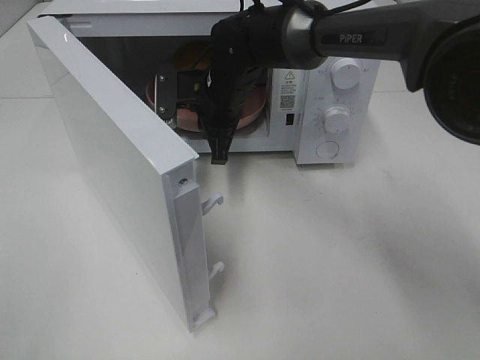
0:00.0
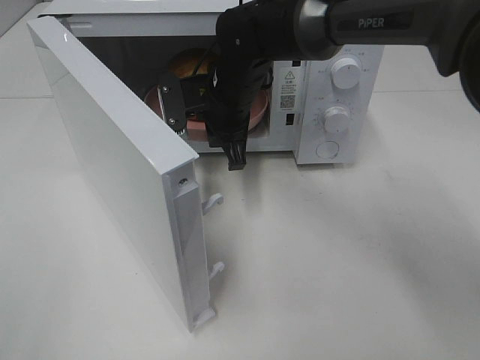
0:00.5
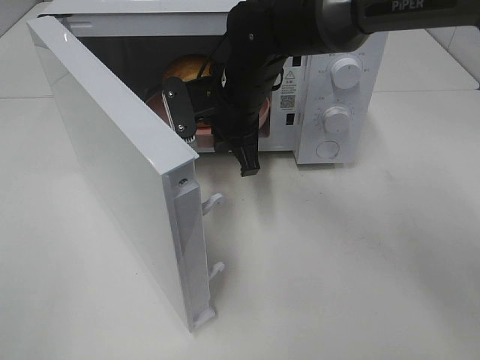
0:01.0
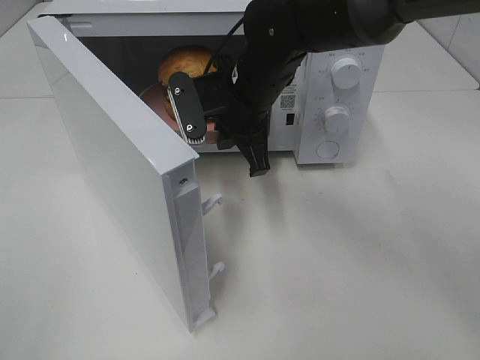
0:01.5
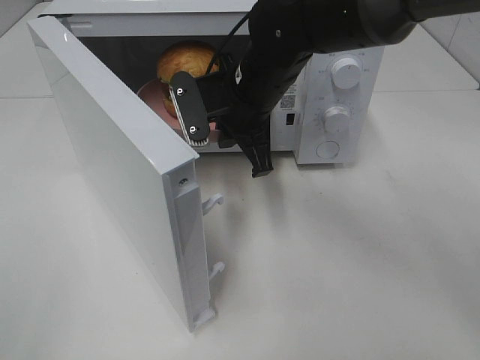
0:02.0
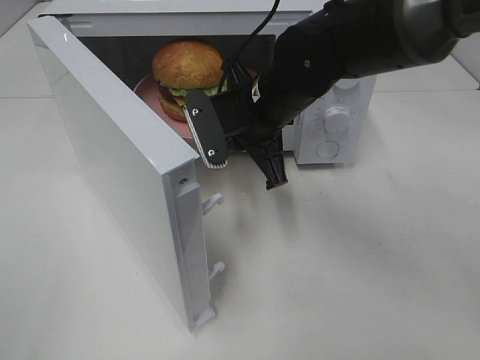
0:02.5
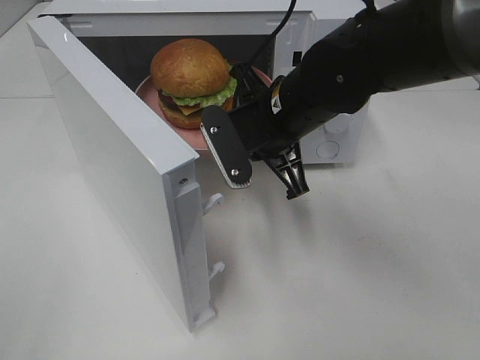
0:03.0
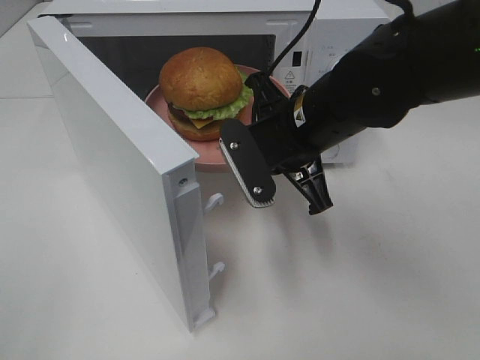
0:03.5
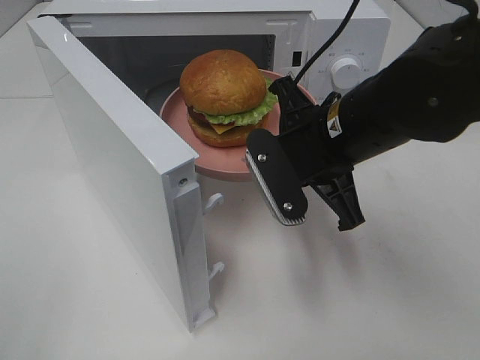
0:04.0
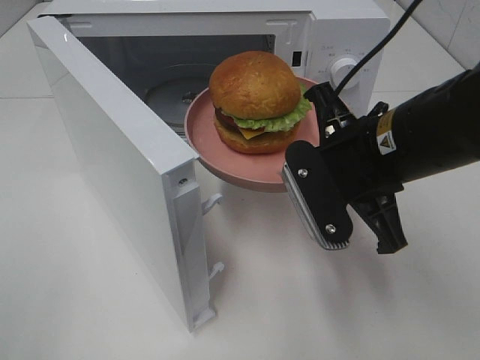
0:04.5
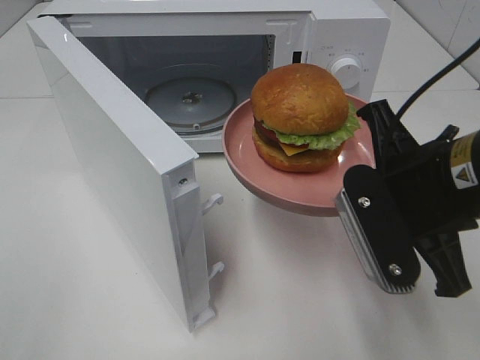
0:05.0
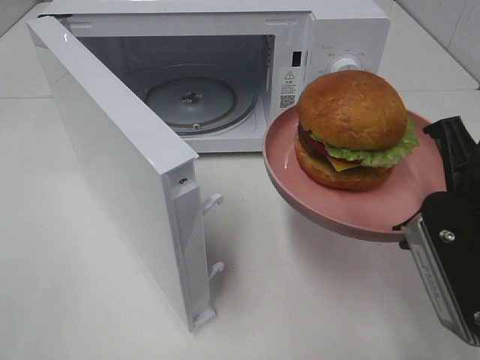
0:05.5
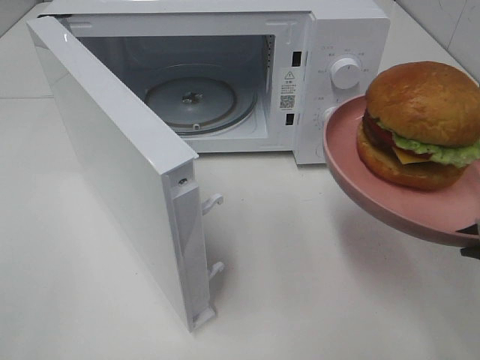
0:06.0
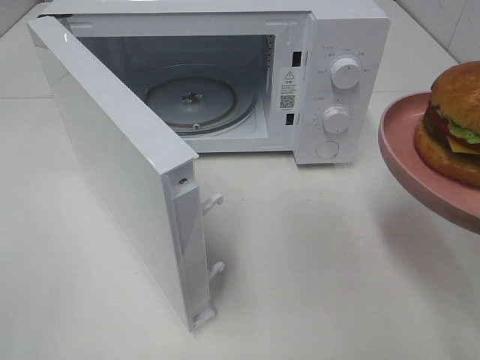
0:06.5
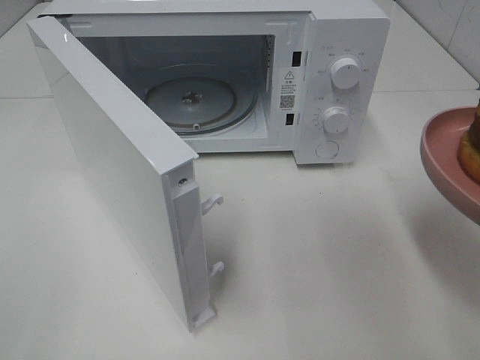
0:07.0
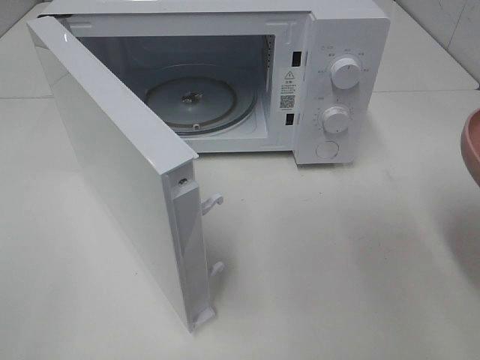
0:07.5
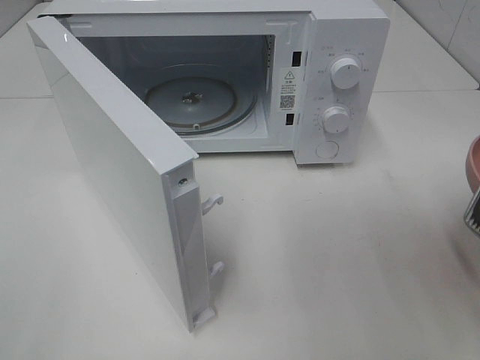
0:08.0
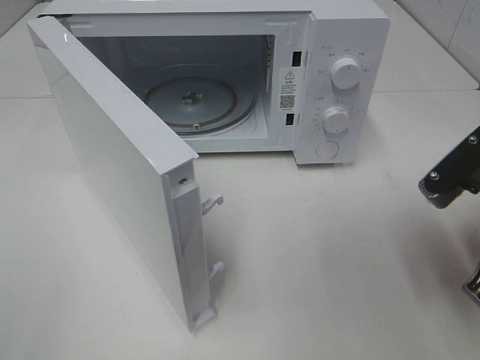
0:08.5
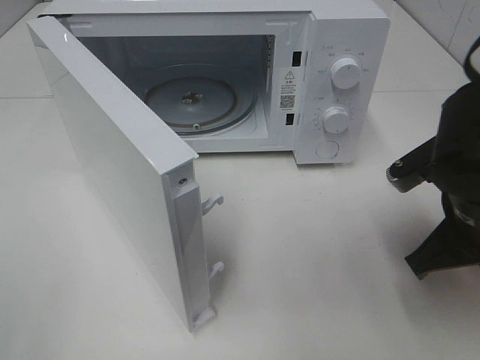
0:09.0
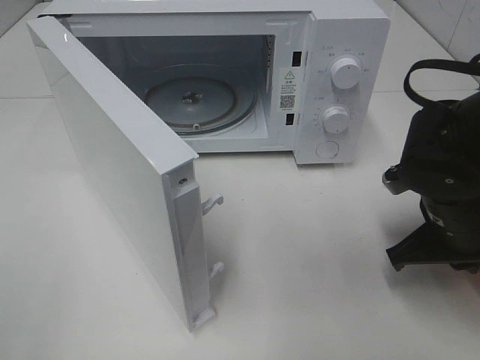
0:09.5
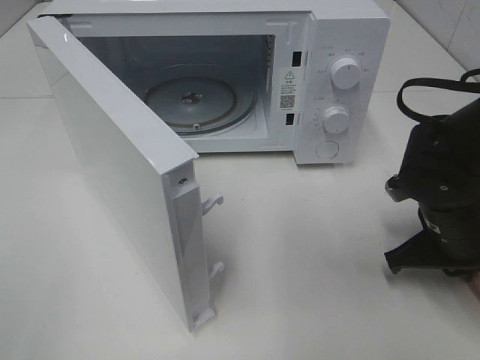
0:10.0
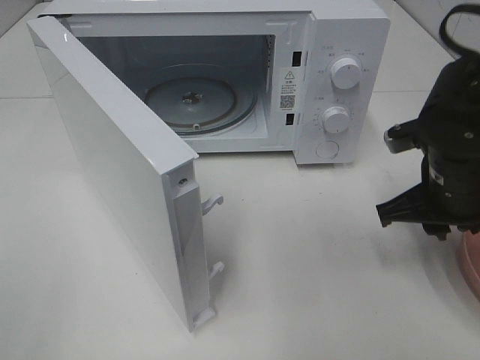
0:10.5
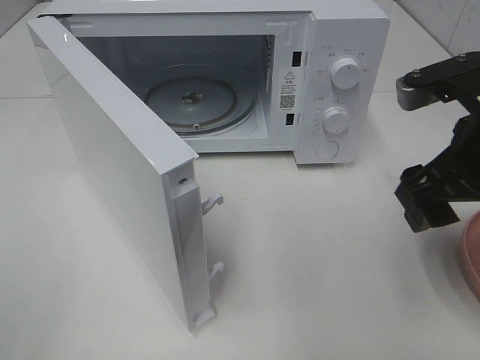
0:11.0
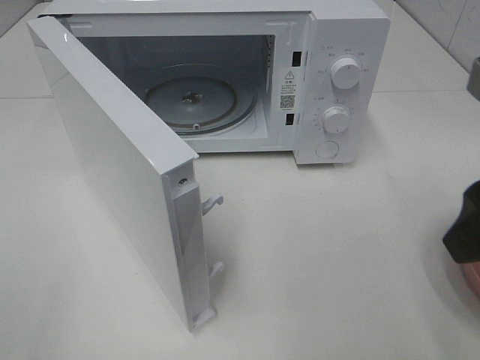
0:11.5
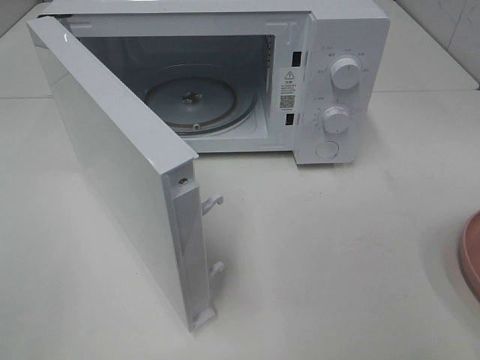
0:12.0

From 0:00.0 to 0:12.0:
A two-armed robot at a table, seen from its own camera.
Task of the whole recording: Heat the burger.
Step, from 0:00.0 to 0:10.0: Right hand: place the plate on the table.
From 0:00.0 to 0:02.0: The right gripper is displaced backward by some 5 cm.
From 0:02.0 to 0:04.0: The right gripper shifts approximately 10 cm backward and to the right.
From 0:04.0 to 0:06.0: The right gripper moves backward and to the right, roughly 20 cm.
From 0:08.0 to 0:10.0: The right gripper heads downward and forward, covering some 15 cm.
From 0:10.0 to 0:12.0: The right gripper shifts some 30 cm upward and backward, and opens.

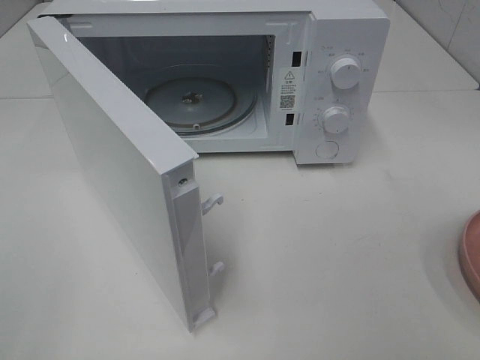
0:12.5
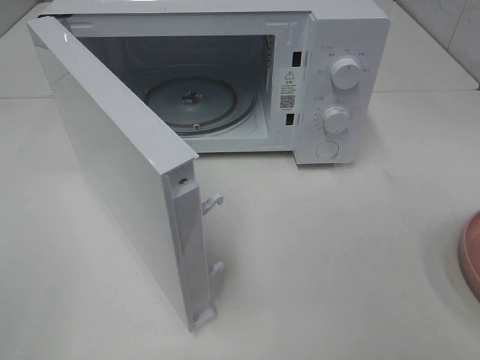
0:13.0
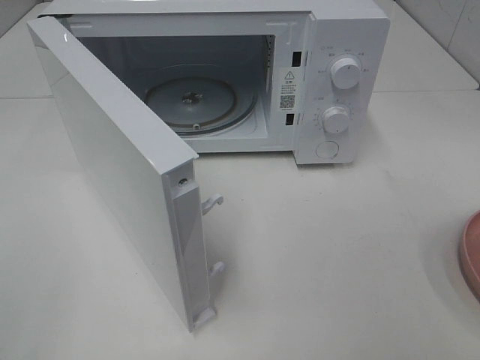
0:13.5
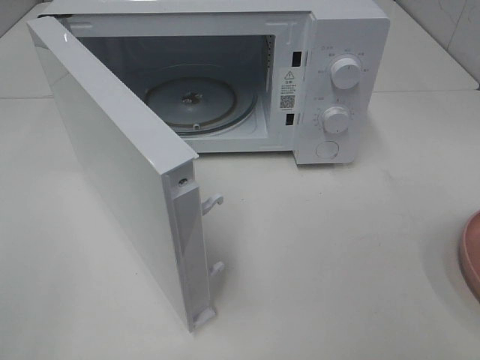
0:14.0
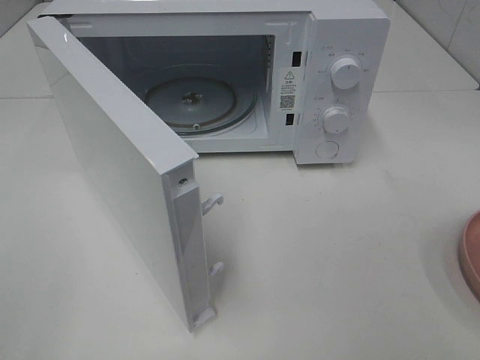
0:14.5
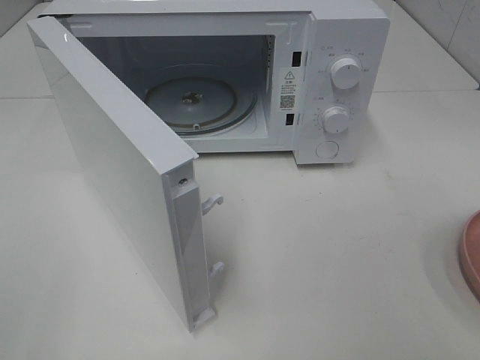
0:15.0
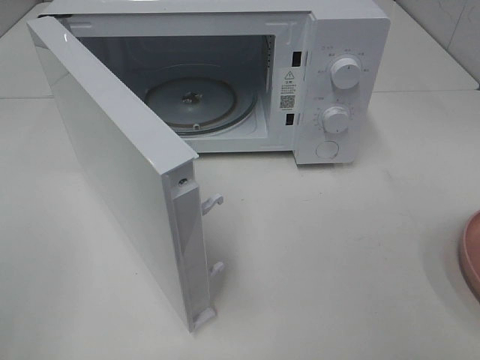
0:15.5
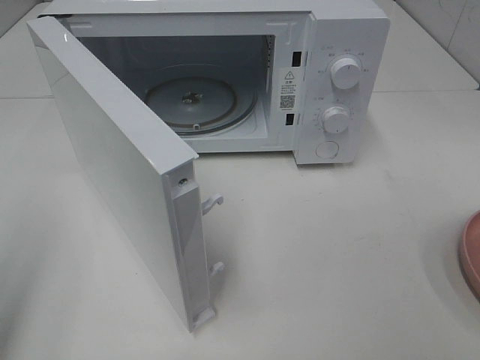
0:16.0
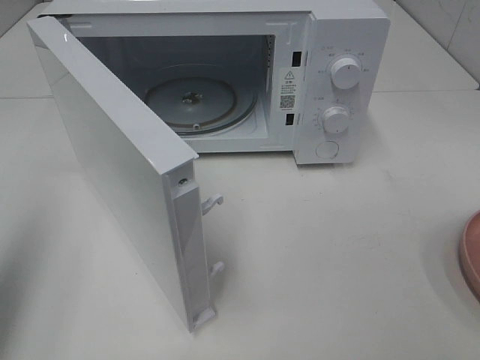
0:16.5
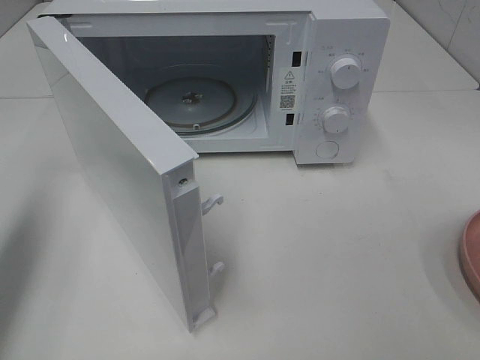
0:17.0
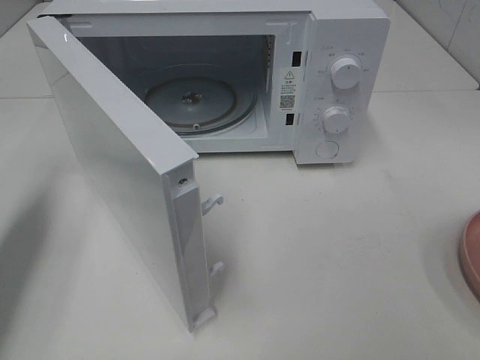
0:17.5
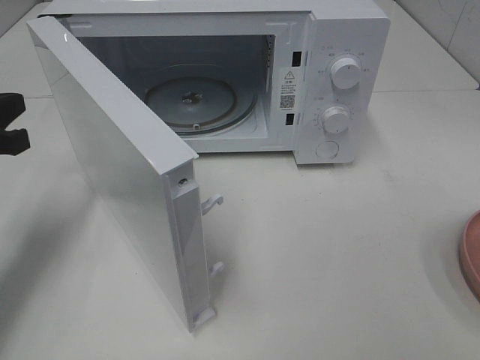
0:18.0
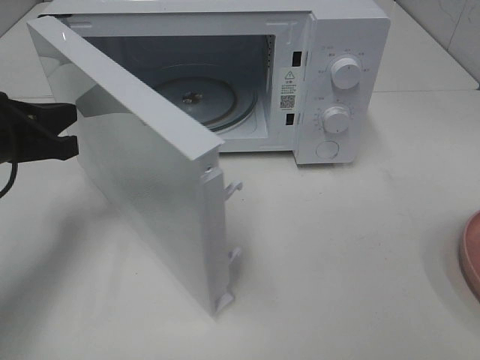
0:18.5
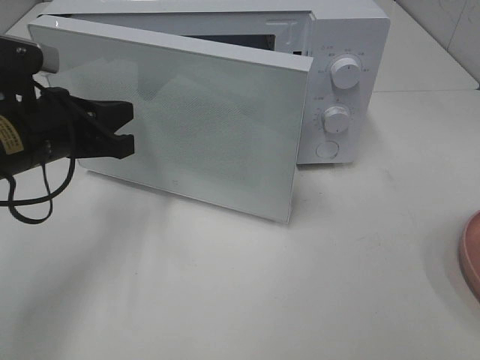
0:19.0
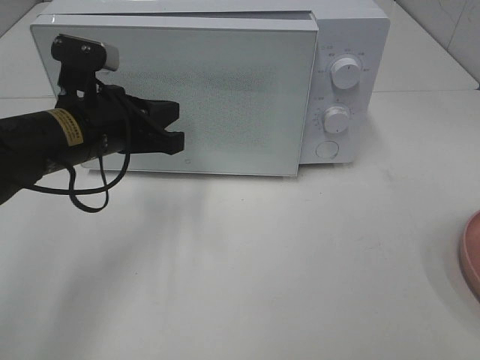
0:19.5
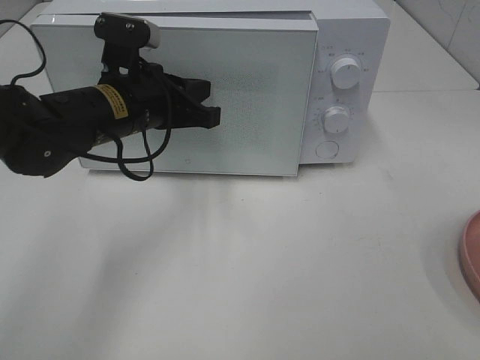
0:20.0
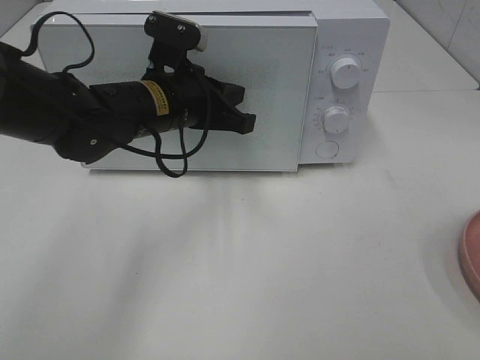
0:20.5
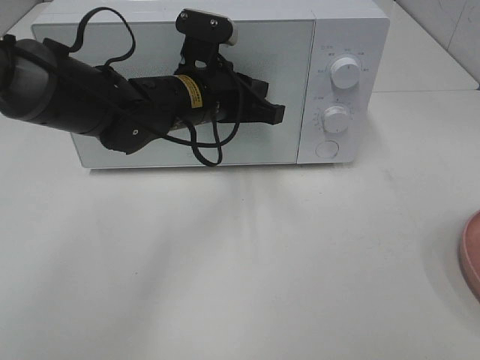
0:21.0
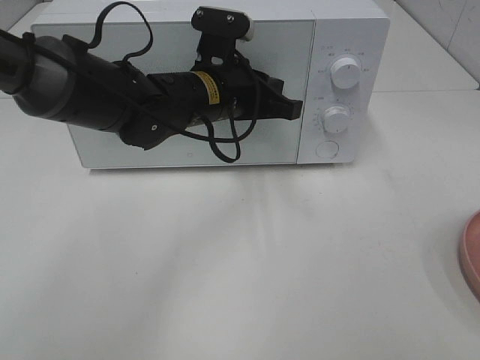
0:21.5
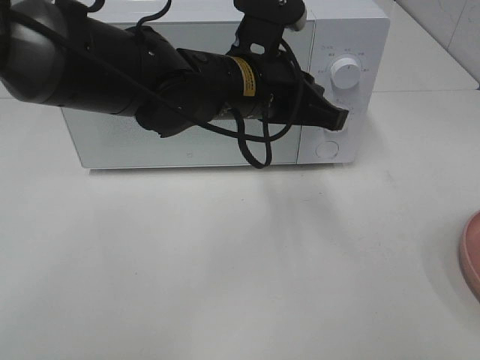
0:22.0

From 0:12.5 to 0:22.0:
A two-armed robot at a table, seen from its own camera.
Task of the whole recording: Heat the burger.
Step, from 0:12.5 to 0:21.5: Left hand: close the microwave door.
From 0:14.5 to 0:16.5: The left gripper is displaced forward by some 15 cm, and closes.
From 0:16.5 to 0:18.0: The left gripper is displaced downward and forward by approximately 20 cm.
From 0:18.0 to 0:20.0: The left gripper goes about 20 cm to the right and forward.
From 0:20.0 to 0:22.0: The left gripper travels to the right by about 15 cm.

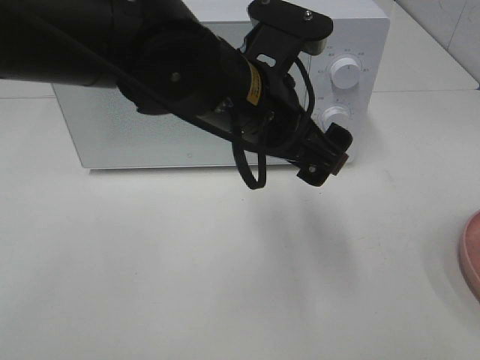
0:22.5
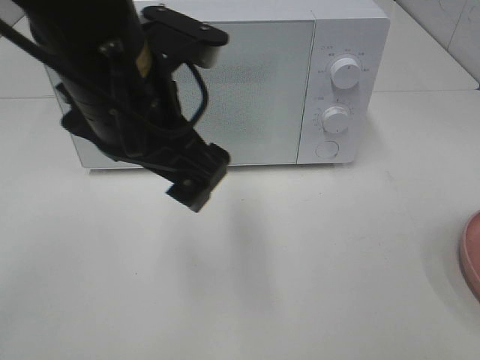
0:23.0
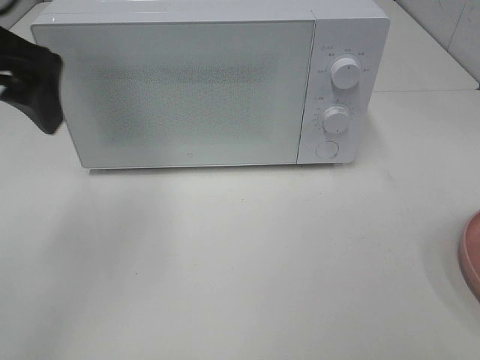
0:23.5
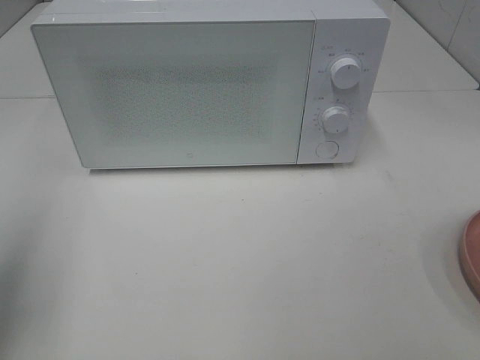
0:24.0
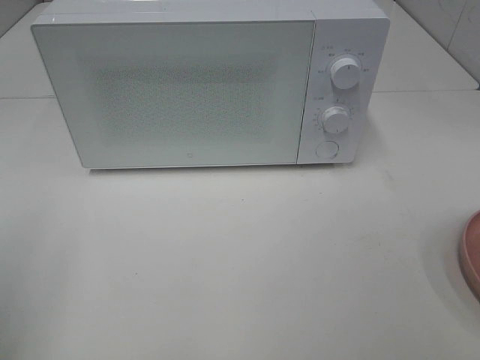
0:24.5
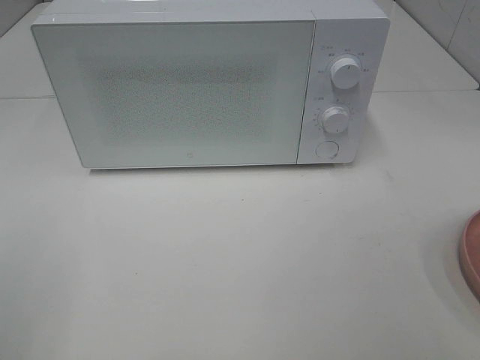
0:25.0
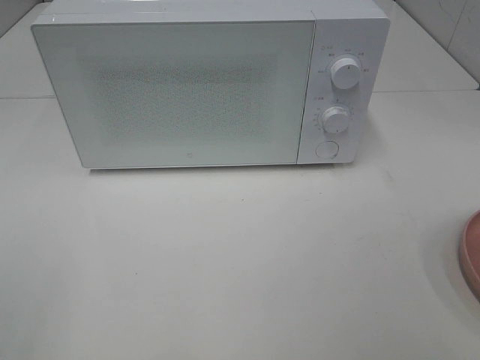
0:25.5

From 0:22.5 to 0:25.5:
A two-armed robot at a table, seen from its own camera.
Task of the whole recording: Heat the burger.
From 0:22.5 to 0:24.0: The left gripper shifts about 35 cm to the left.
From 0:24.0 to 0:25.5: The left gripper is displaced backward by approximately 20 cm.

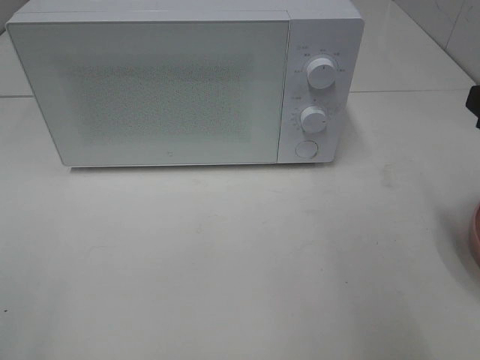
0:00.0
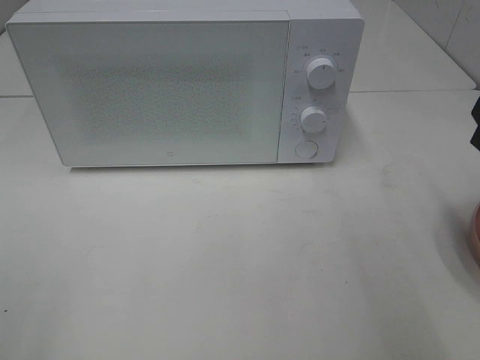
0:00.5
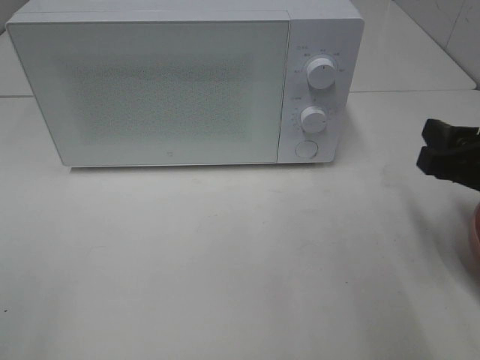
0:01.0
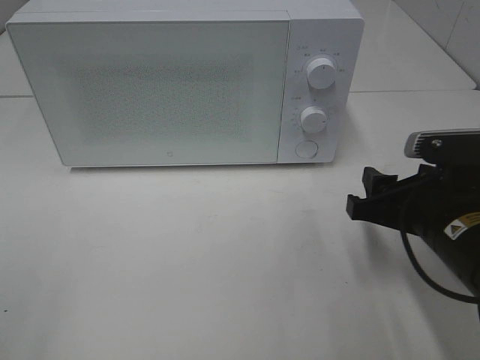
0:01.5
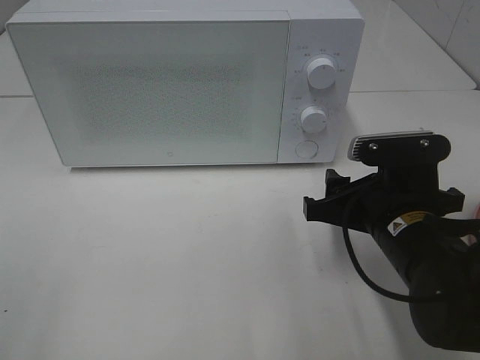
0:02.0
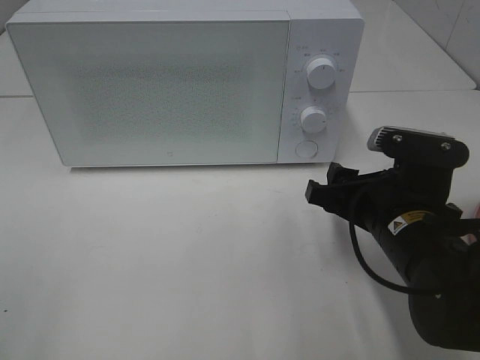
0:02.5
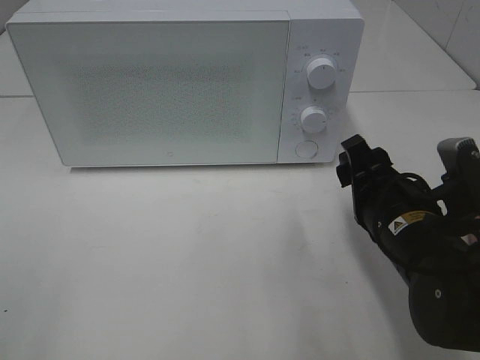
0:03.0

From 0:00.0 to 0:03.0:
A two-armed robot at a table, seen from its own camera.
Task of the whole recording: Heat the burger.
From 0:00.0 to 0:01.5: The right gripper heads downward and to the left, covering approximately 15 cm.
